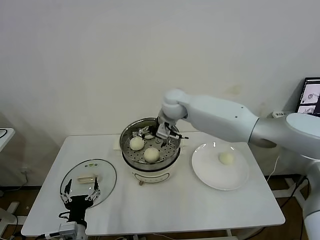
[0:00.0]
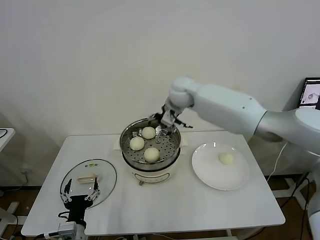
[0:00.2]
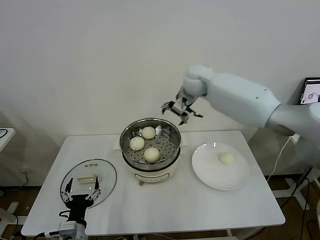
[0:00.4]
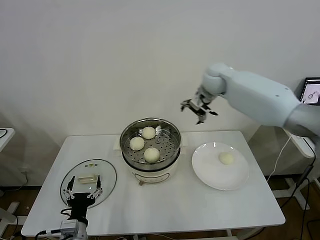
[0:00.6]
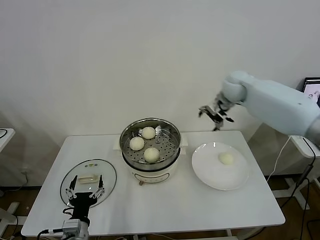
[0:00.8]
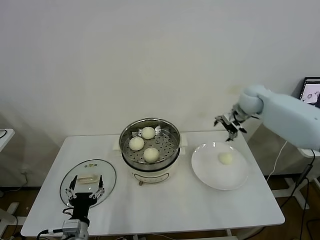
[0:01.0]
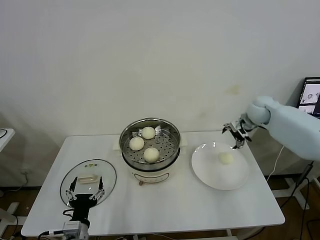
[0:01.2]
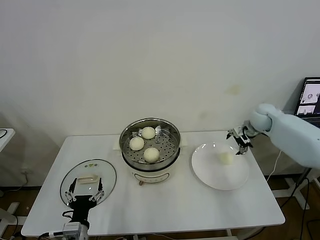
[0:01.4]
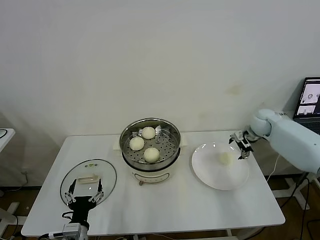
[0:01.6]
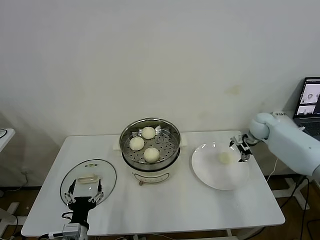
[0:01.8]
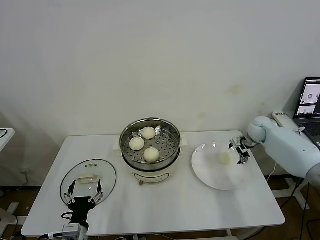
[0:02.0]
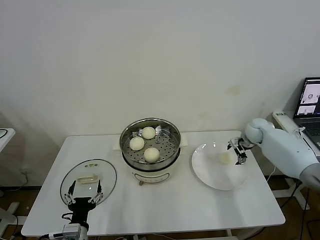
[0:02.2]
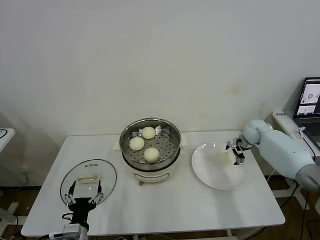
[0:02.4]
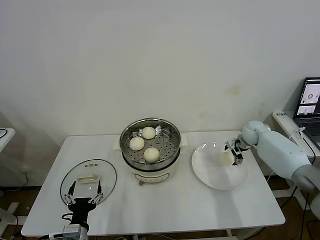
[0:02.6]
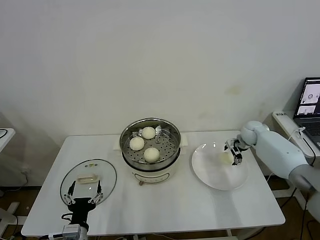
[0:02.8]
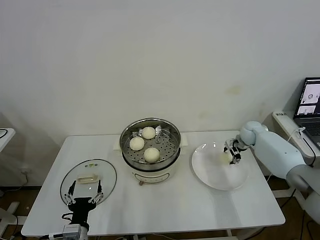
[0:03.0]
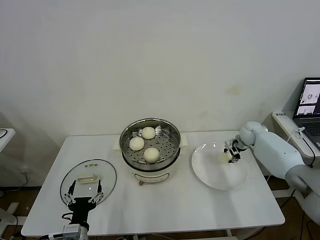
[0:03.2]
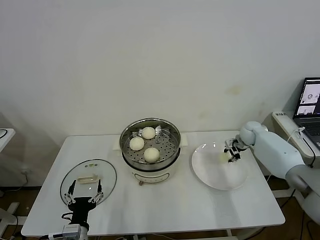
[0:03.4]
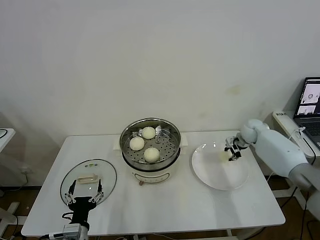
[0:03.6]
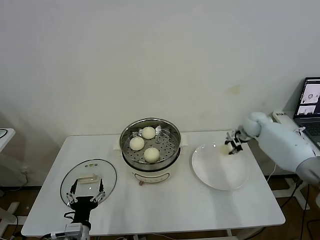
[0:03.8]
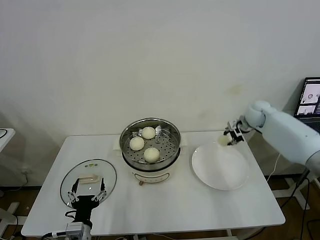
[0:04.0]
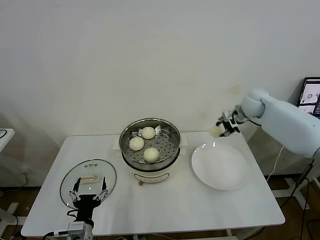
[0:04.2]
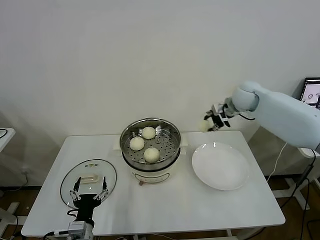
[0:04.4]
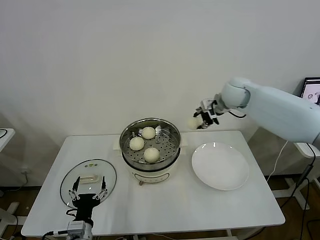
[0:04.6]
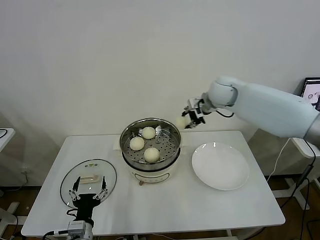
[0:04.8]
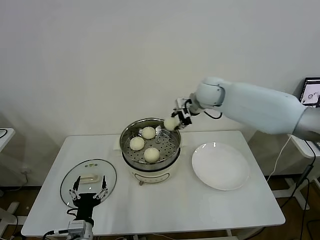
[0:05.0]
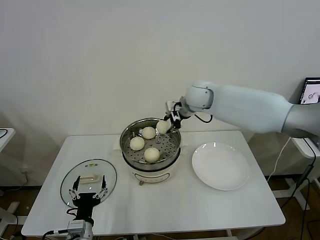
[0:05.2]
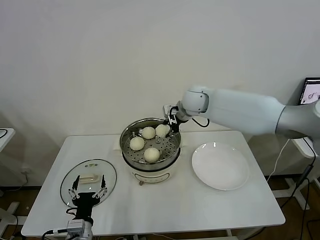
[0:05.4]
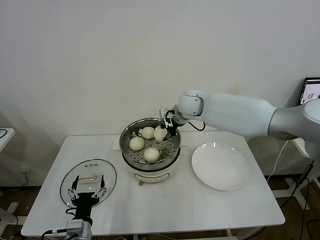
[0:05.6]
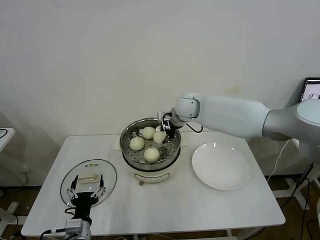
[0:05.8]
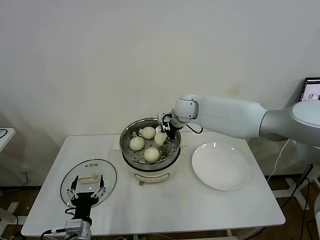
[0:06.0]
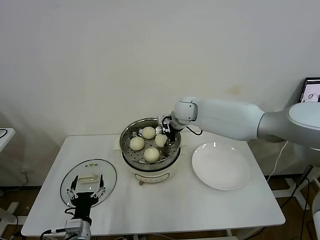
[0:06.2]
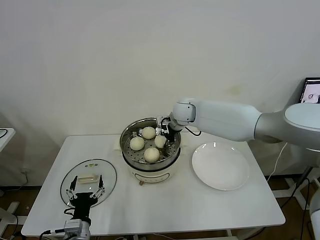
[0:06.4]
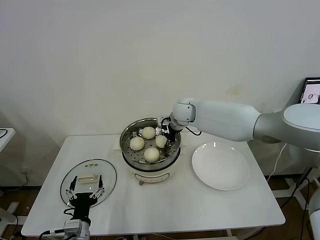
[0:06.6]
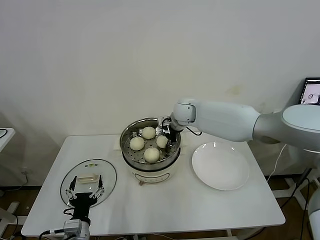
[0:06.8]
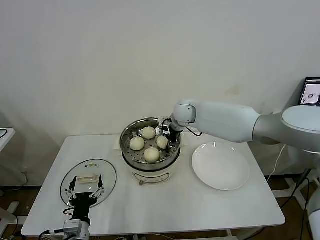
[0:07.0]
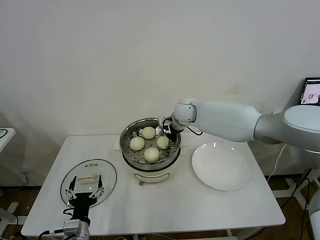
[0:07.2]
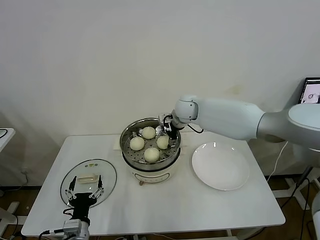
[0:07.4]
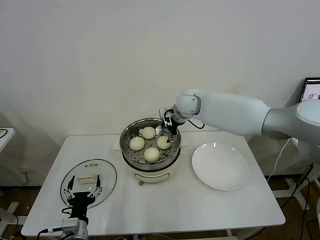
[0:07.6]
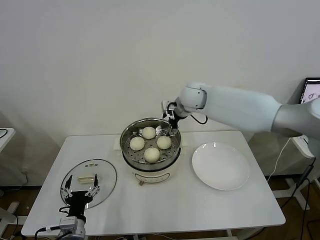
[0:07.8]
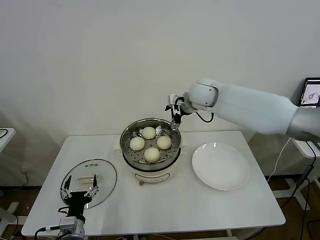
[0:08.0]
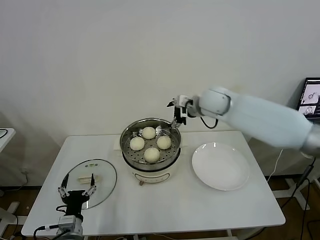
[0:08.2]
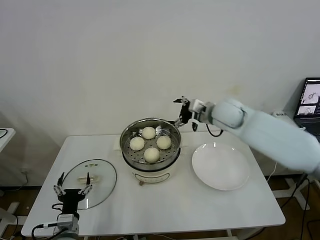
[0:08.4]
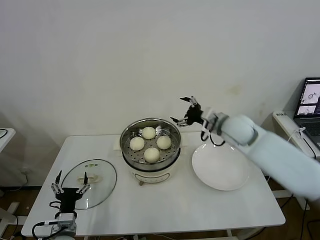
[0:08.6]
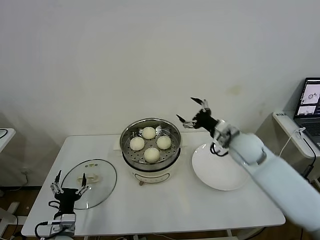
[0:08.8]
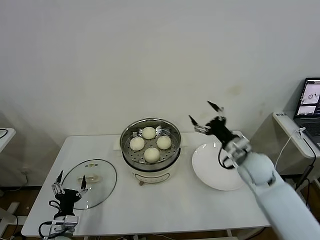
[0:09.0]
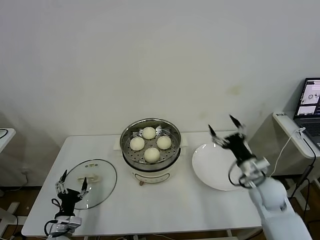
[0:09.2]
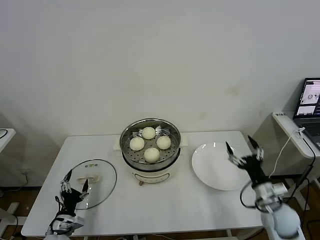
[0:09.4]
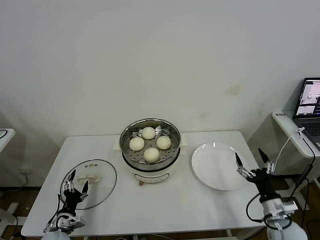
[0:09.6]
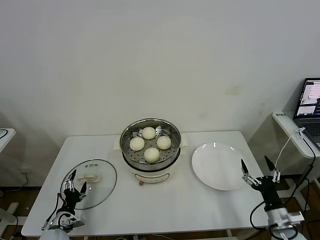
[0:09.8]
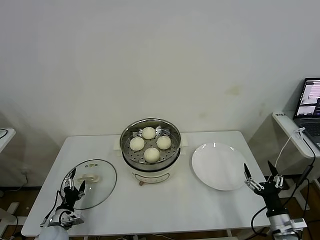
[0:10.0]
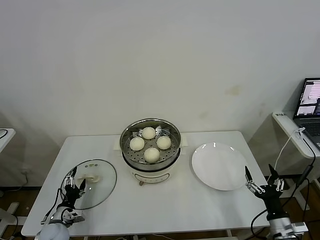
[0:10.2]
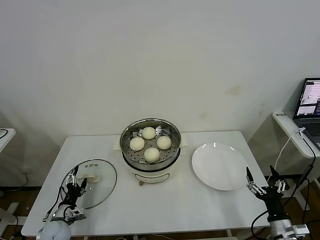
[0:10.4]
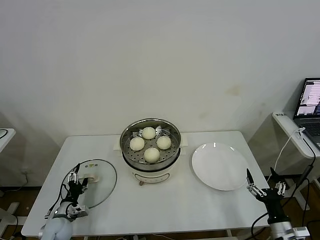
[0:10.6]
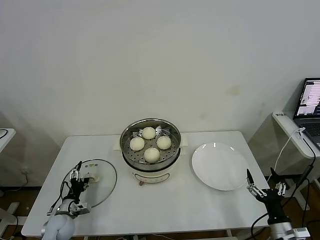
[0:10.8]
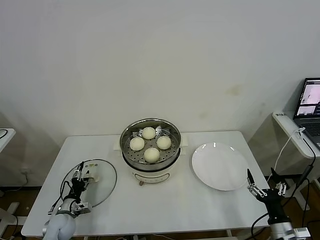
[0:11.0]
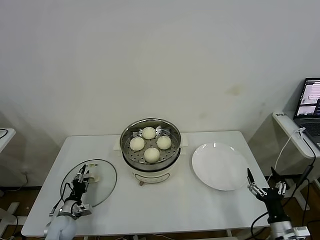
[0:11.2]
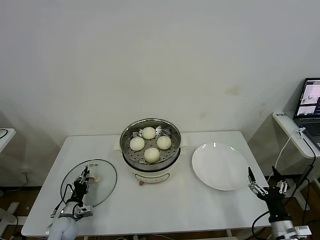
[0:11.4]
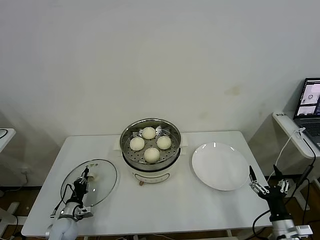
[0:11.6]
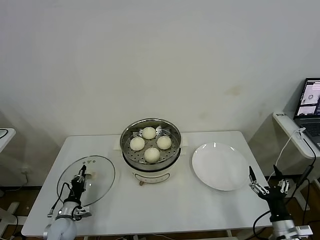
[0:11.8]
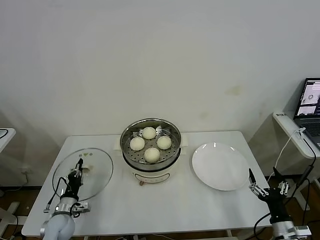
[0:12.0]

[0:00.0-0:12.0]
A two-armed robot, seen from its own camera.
Task of the whole recording: take steamed baozi put them in steamer then cover it.
Step, 0:00.0 to 0:03.2: Grasp the baozi in the plate with right gripper.
Step, 0:03.4 to 0:07.4: Place the baozi on the steamer with right gripper.
Step, 0:07.6 to 0:11.6: Grasp the pot lid with left gripper.
0:00.0 to 0:01.6: The right gripper travels to the right by about 35 cm.
0:01.6 to 0:03.0: The right gripper moves downward, roughly 10 cm.
0:03.0 to 0:04.4: The right gripper travels upward and to the left by approximately 20 cm, and closes up.
0:04.4 to 0:06.0: The right gripper is displaced to the left by roughly 20 cm.
0:06.0 to 0:07.6: The right gripper opens.
0:07.6 to 0:09.0: The left gripper goes about 10 cm to the left and downward. Meanwhile the right gripper heads backward, to the right and downward, covering roughly 30 cm.
0:09.0 to 0:10.4: The right gripper shifts roughly 30 cm backward, downward and to the right. Meanwhile the left gripper heads forward and to the left, covering approximately 10 cm.
0:10.4 to 0:12.0: The left gripper closes up.

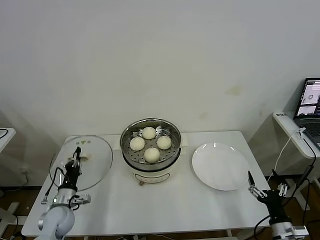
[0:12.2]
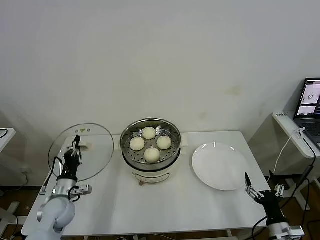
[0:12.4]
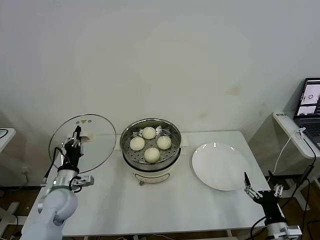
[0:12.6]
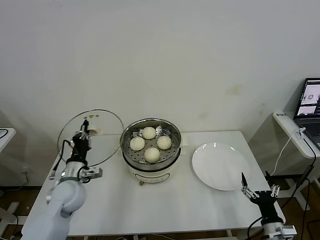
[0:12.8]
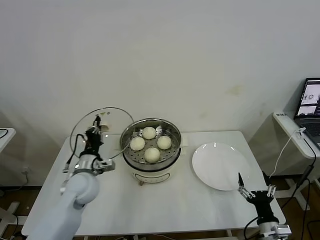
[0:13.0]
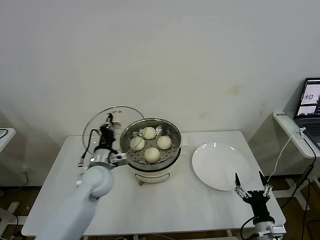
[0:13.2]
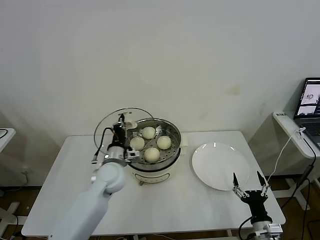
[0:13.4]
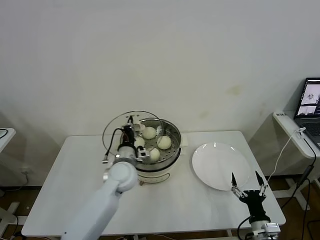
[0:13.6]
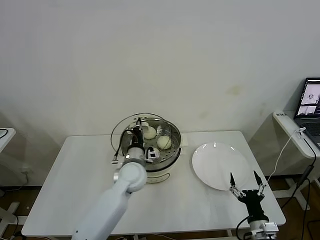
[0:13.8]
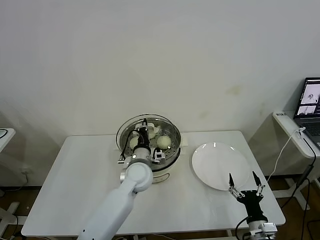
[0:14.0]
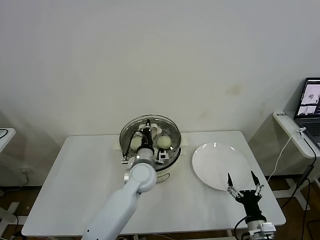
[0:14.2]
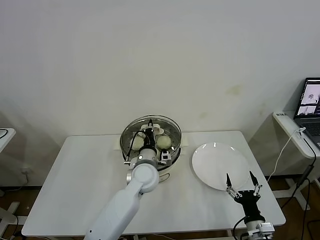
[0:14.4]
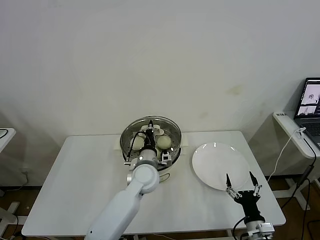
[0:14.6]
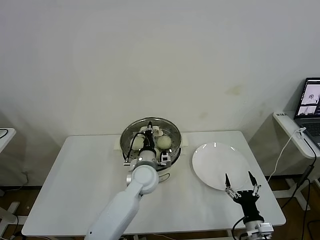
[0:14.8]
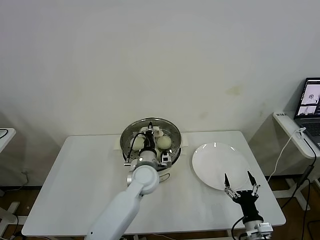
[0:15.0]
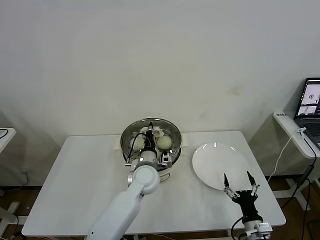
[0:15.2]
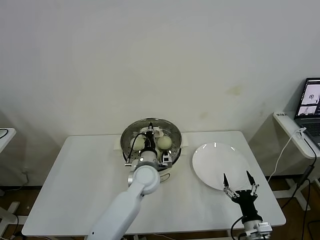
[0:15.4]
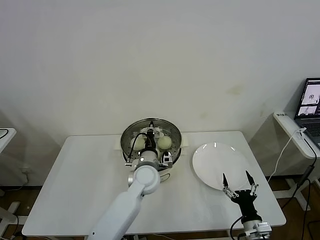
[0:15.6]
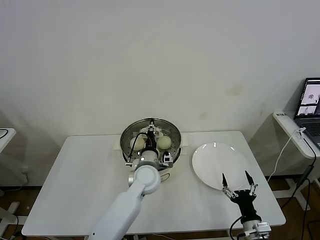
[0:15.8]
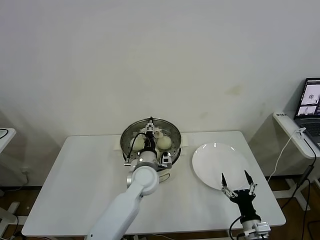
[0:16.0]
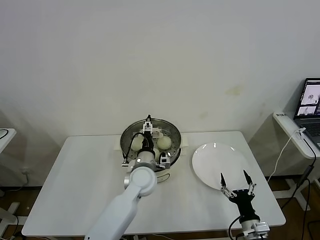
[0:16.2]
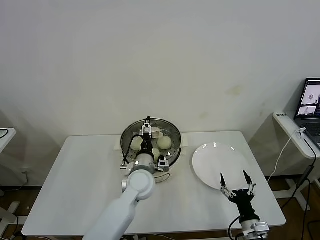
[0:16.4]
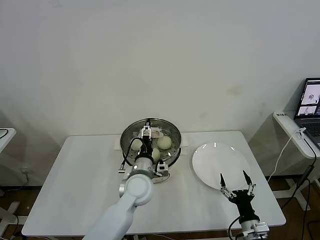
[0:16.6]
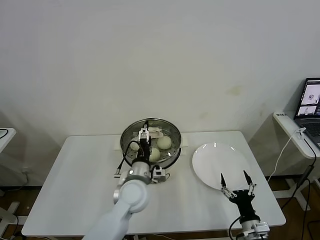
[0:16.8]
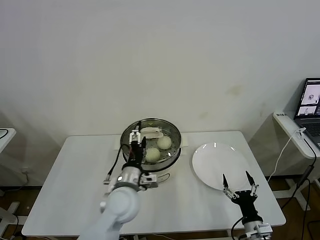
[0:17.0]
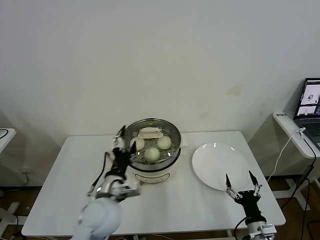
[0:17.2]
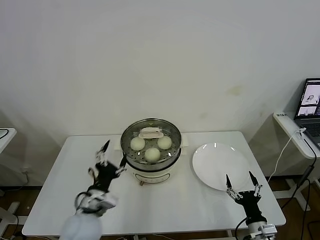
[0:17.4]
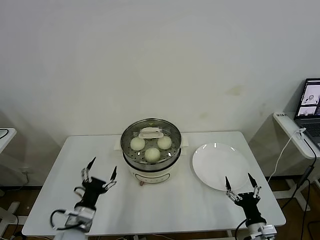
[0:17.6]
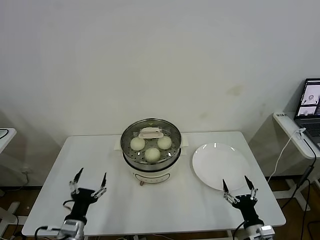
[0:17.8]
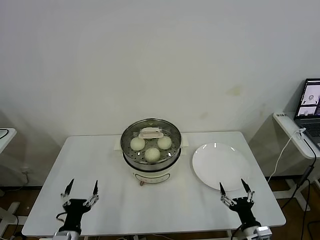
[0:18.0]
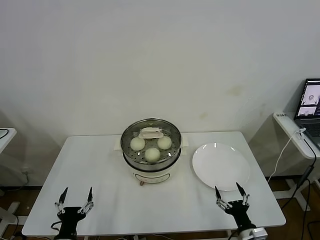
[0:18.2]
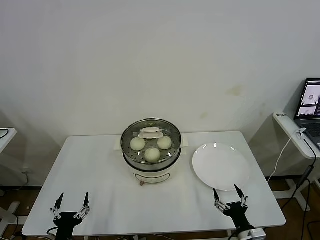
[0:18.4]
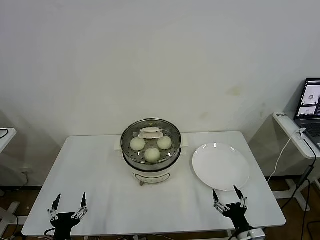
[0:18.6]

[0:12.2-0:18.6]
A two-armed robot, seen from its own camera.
Task of the whole recording: take steamed baozi put them in steamer then cover it.
Step, 0:12.2 to 0:16.4: Place the pot lid on the steamer with left gripper.
0:12.2 to 0:13.8: The left gripper goes some 30 cm to the right, upward and forward, while the right gripper moves to the left, about 5 cm.
0:13.8 to 0:15.4: The left gripper heads to the right, covering roughly 5 cm.
0:15.4 to 0:17.0: The left gripper goes about 10 cm backward, and opens its fingers.
0:17.0 to 0:18.6: The left gripper travels to the left, backward and downward by about 30 cm.
